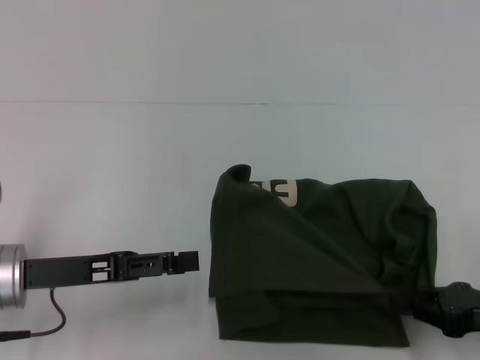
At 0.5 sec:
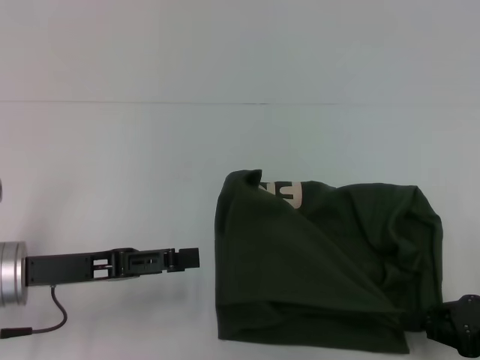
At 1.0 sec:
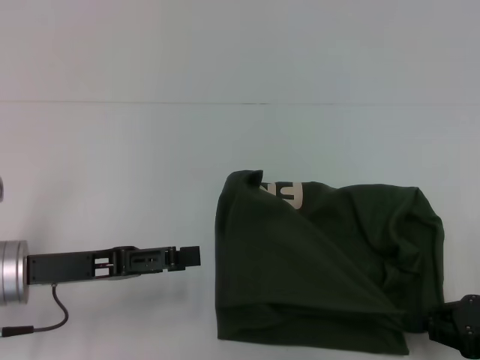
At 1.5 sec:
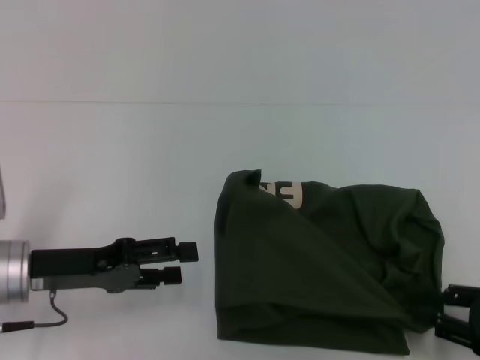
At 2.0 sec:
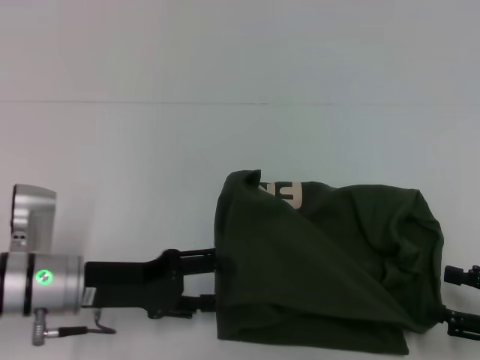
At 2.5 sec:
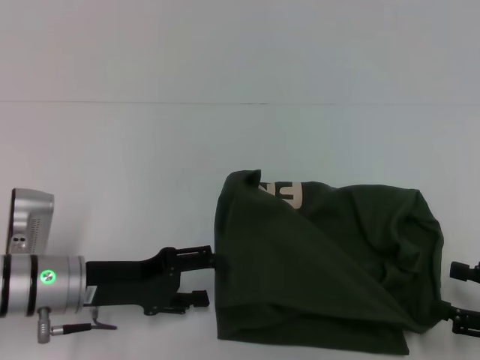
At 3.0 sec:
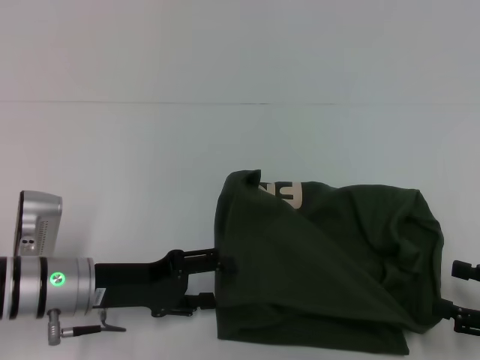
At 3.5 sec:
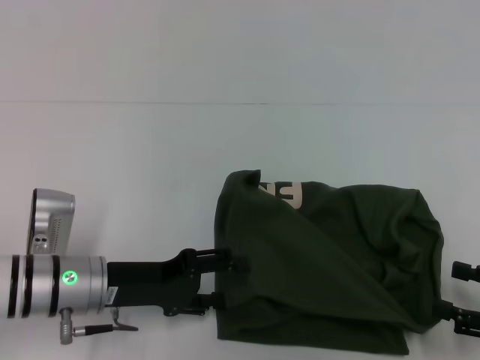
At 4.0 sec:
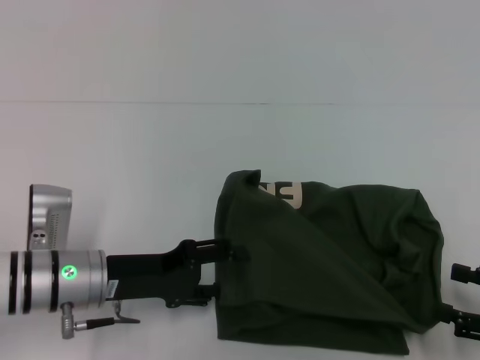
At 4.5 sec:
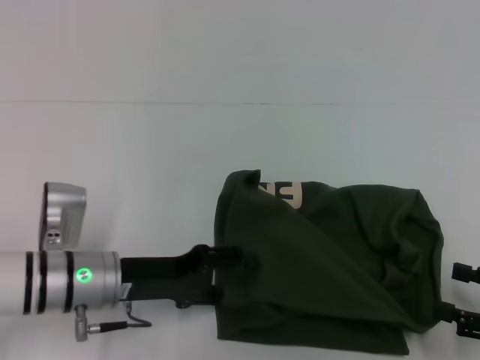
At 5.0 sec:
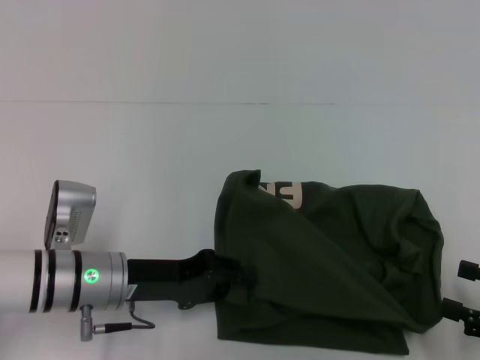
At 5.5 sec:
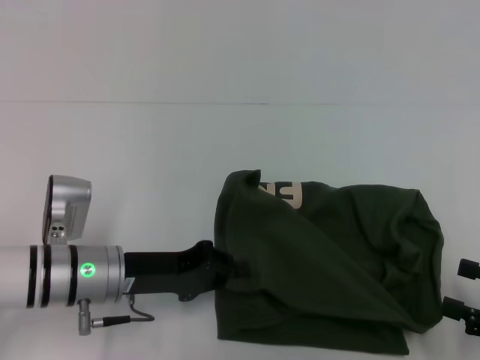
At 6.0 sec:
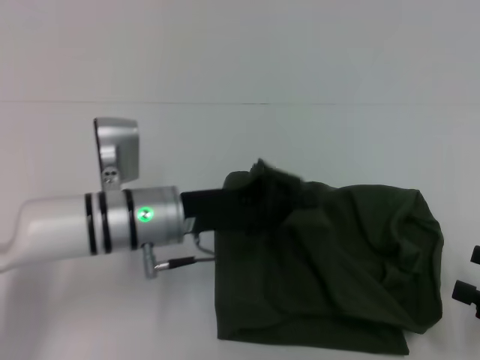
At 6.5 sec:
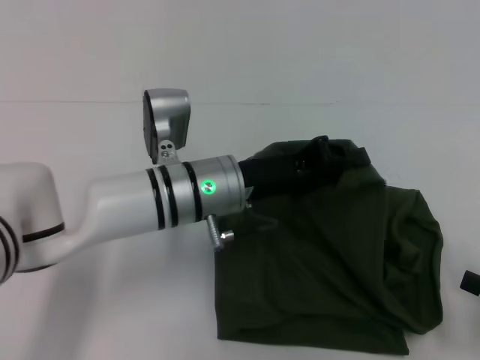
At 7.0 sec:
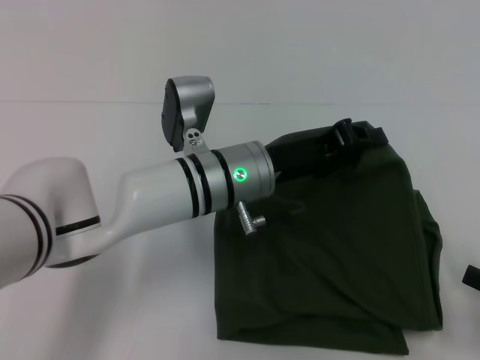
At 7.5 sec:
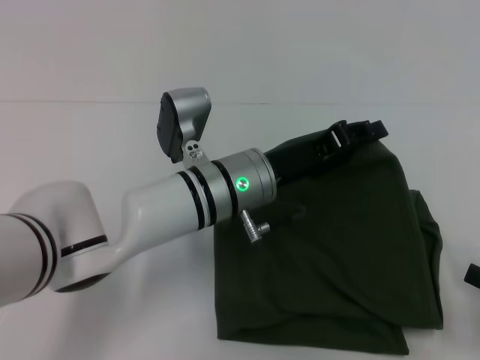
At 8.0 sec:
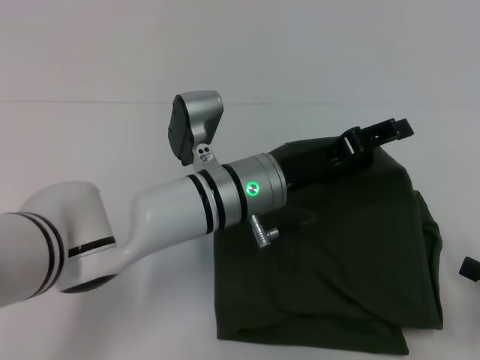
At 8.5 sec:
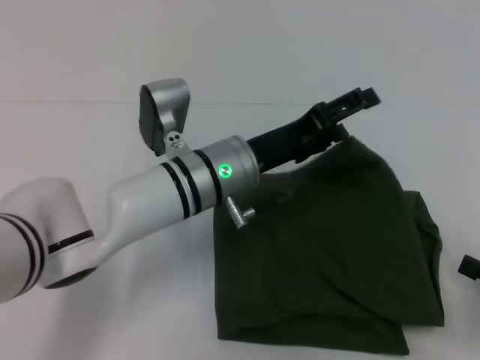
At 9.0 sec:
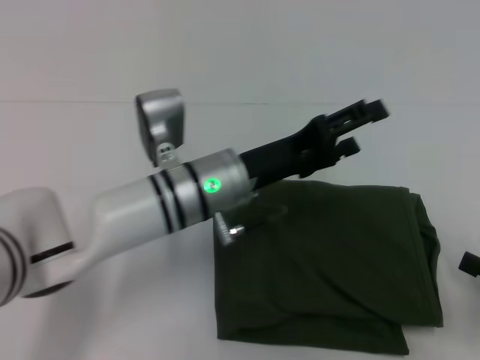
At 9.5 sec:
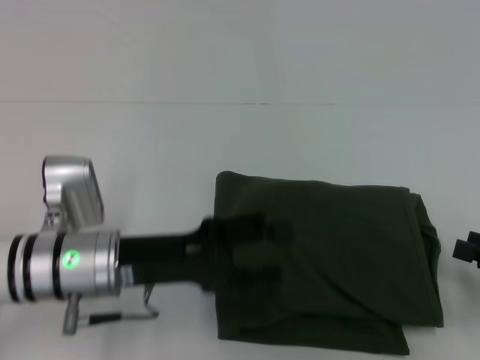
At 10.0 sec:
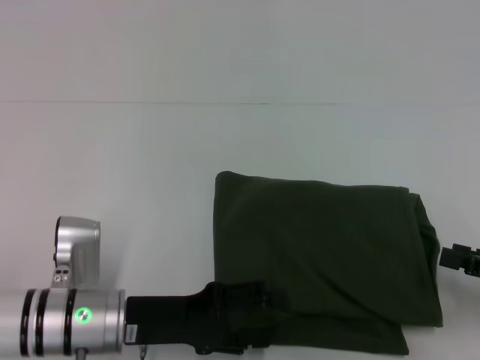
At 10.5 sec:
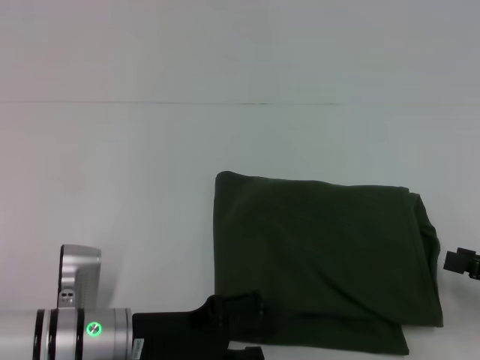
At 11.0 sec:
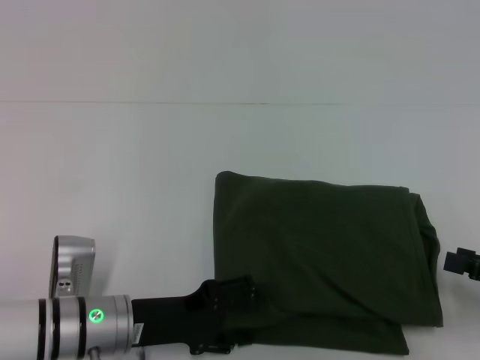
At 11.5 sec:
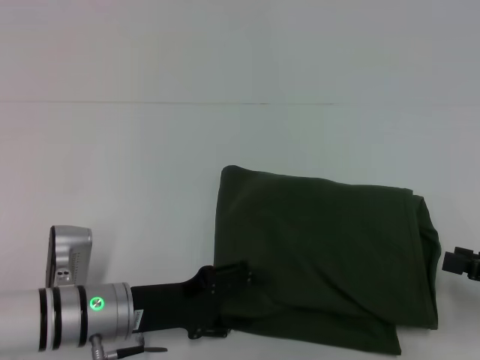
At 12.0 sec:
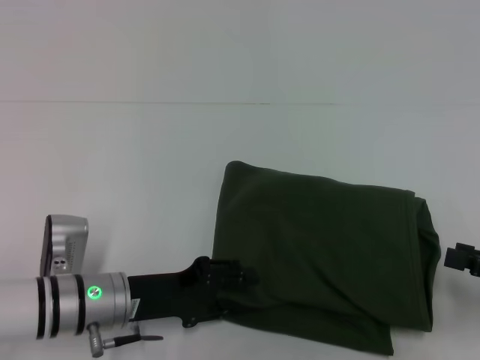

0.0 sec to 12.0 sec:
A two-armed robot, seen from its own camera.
Step, 0.0 sec to 8.5 sec: Fold the clothes with your left hand.
0.0 sec to 2.0 sec: The left gripper shifts by approximately 5 cm. The right gripper opens up.
2.0 sec to 4.0 sec: The grippers stay close to where they were, moving slightly.
4.0 sec to 6.0 sec: The left gripper heads to the right, covering some 5 cm, and closes its fingers.
6.0 sec to 8.0 sec: The left gripper heads to the right, covering roughly 10 cm, and opens up.
8.0 sec to 10.0 sec: The left gripper travels to the left and backward by roughly 15 cm.
10.0 sec to 12.0 sec: There are only small adjustments of the grippers.

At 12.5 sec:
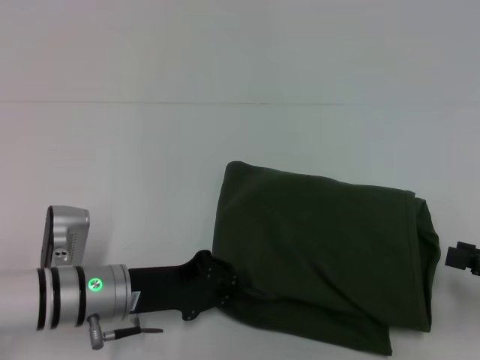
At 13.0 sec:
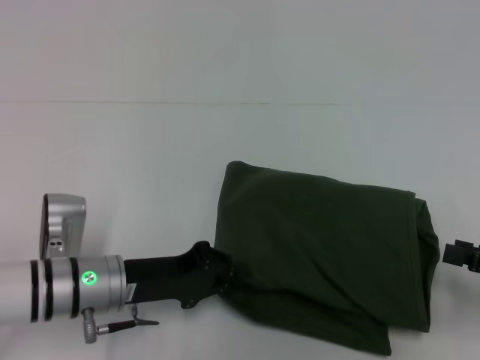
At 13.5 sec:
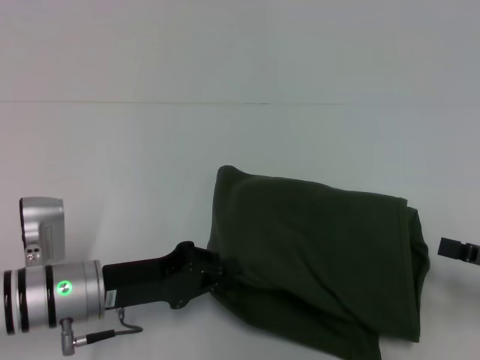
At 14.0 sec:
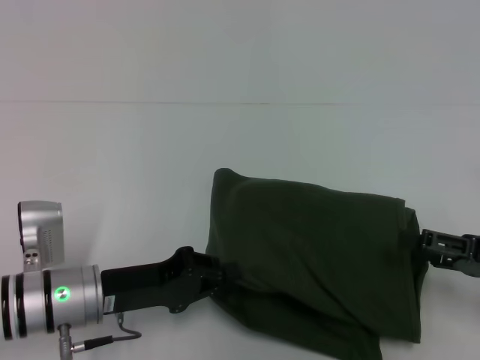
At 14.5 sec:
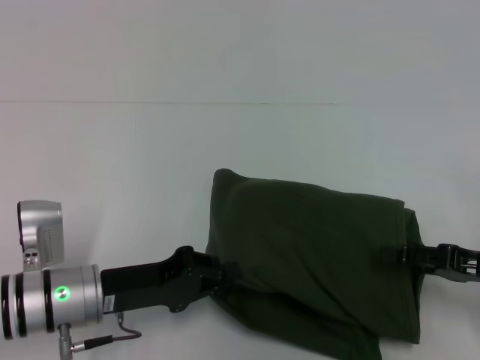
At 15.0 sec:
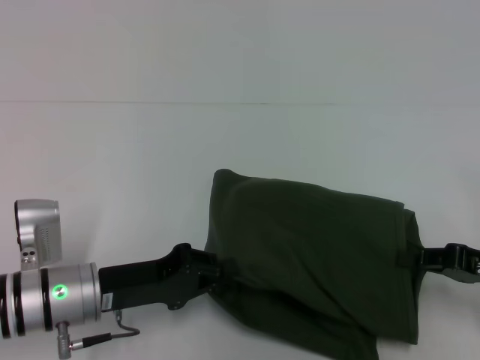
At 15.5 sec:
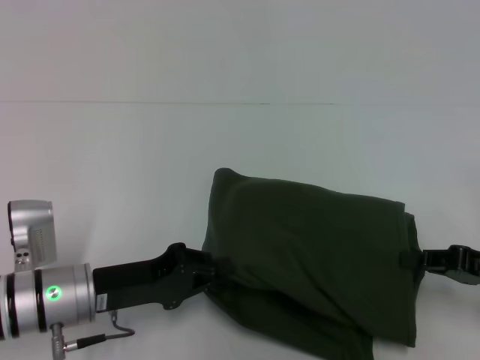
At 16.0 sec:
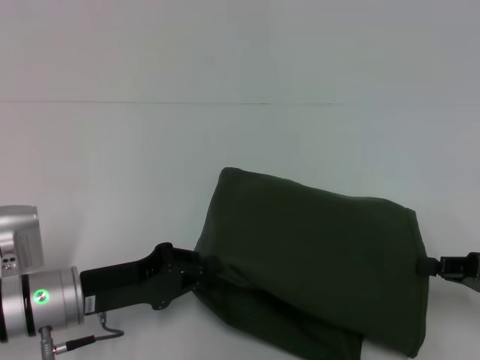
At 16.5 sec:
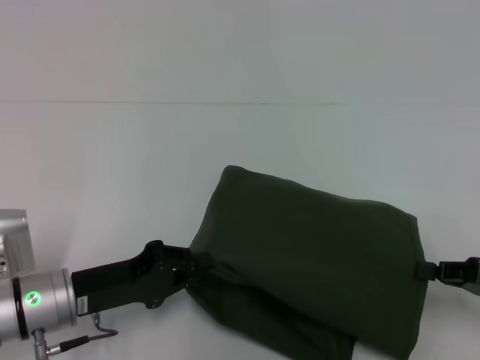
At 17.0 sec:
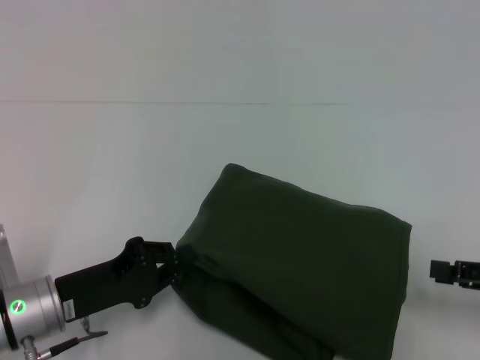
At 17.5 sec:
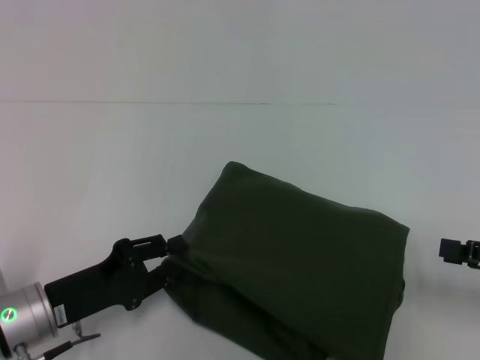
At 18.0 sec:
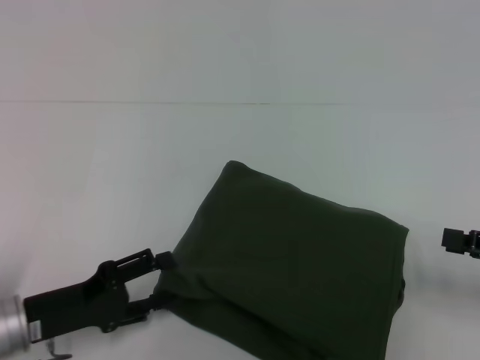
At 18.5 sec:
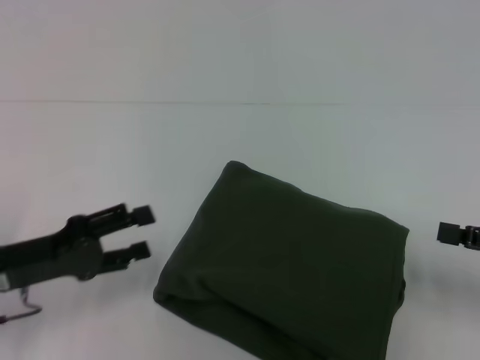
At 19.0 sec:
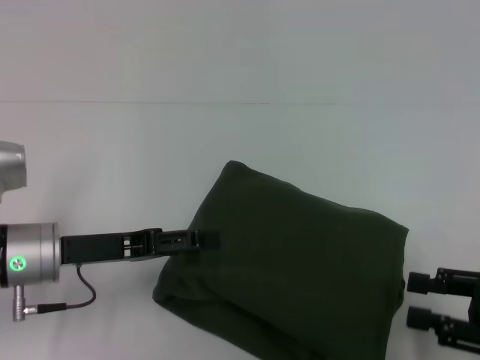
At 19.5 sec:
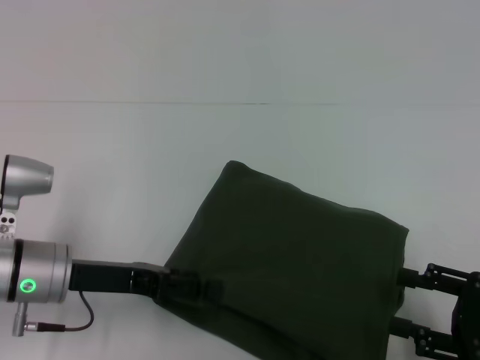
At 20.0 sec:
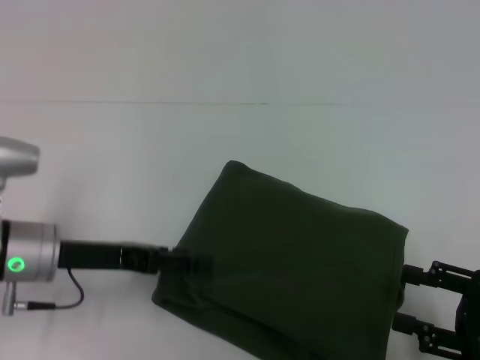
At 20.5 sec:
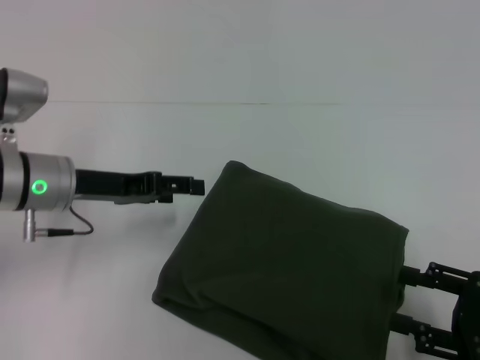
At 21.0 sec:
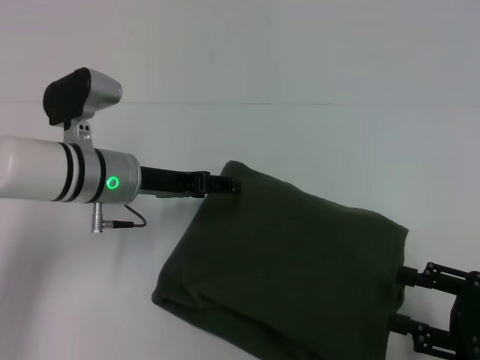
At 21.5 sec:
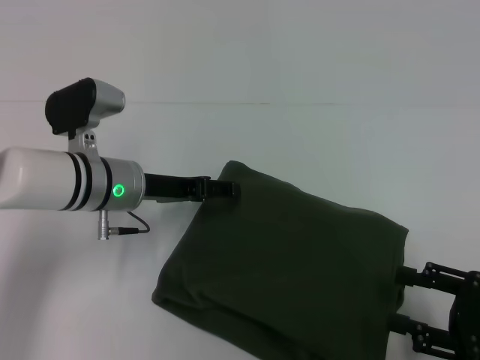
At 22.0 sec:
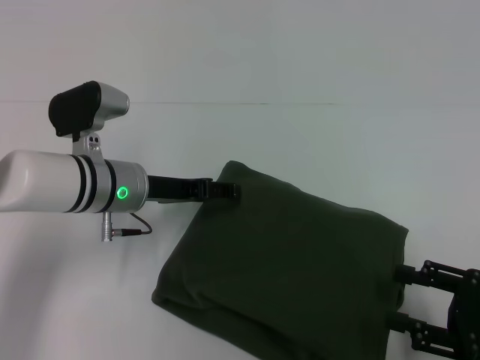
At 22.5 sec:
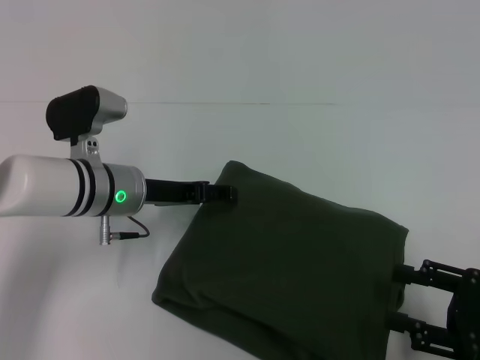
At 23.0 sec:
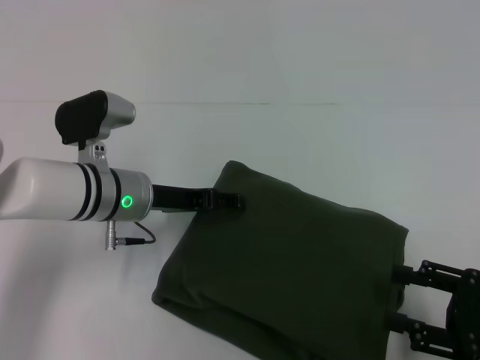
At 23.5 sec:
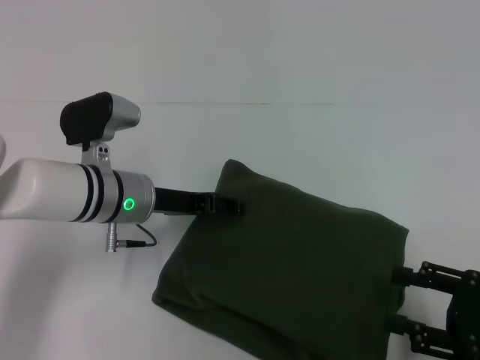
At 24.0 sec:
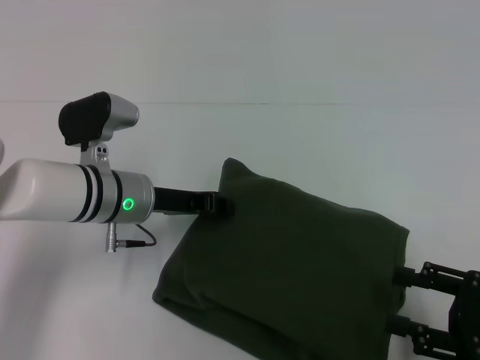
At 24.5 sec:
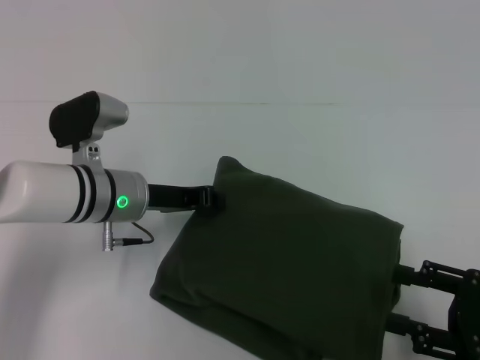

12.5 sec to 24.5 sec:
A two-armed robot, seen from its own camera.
12.5 sec to 14.5 sec: The right gripper is displaced to the left by approximately 5 cm.
14.5 sec to 16.5 sec: The right gripper closes.
16.5 sec to 18.5 sec: The right gripper opens up, while the left gripper moves to the left, roughly 5 cm, and opens its fingers.
18.5 sec to 20.5 sec: The left gripper shifts roughly 10 cm forward and to the right. Meanwhile the right gripper heads backward, covering about 5 cm.
20.5 sec to 22.5 sec: The left gripper is displaced to the right by about 5 cm.
22.5 sec to 24.5 sec: The left gripper closes.

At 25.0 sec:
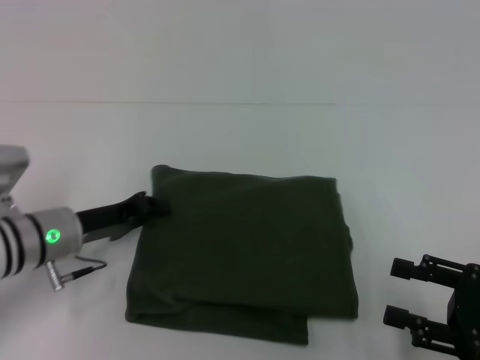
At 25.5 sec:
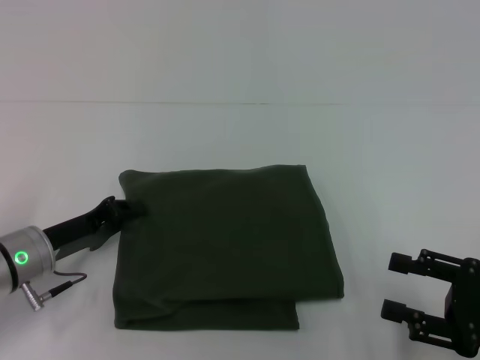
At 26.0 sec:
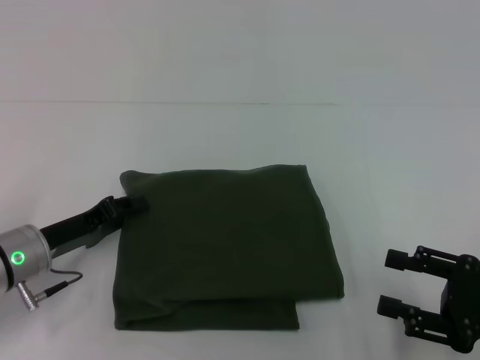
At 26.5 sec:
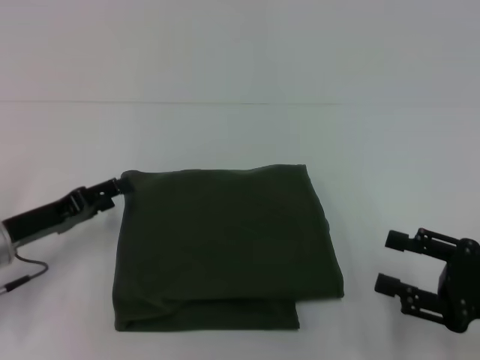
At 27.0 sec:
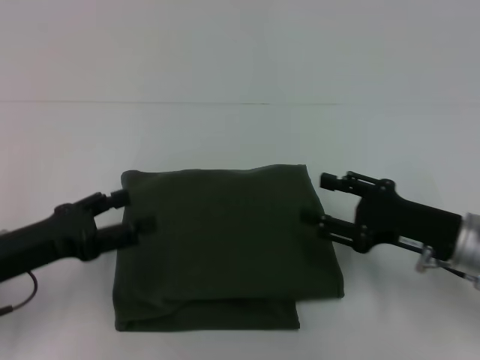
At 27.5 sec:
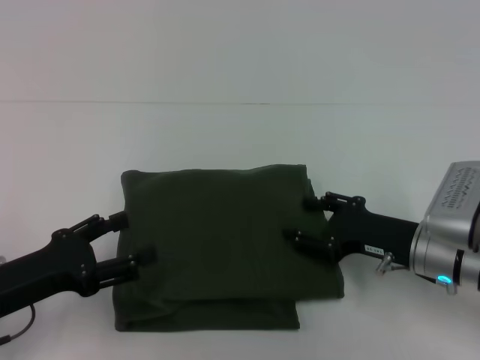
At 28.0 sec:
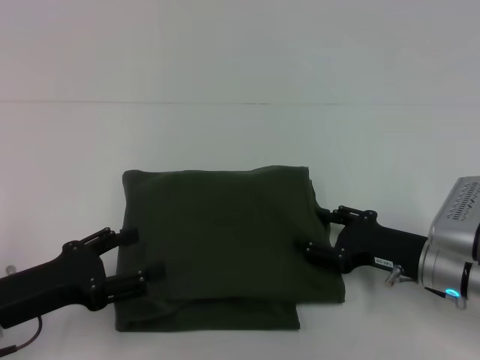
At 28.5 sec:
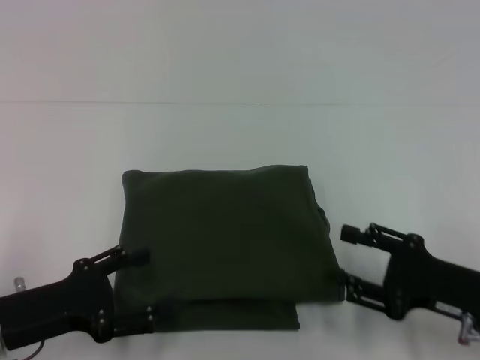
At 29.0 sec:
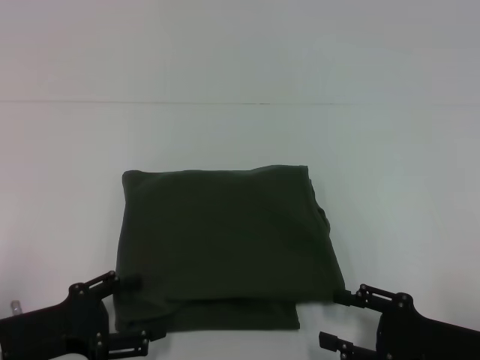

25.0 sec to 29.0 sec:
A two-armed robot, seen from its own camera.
25.0 sec to 27.0 sec: The left gripper shifts about 10 cm backward and to the left, and opens; the right gripper travels forward and to the left by some 10 cm.
27.0 sec to 29.0 sec: The right gripper shifts some 10 cm backward. The left gripper travels backward by roughly 5 cm.
